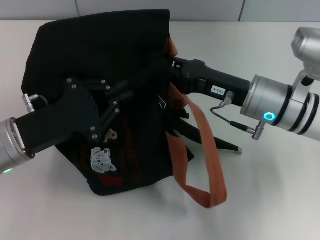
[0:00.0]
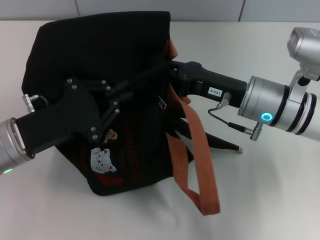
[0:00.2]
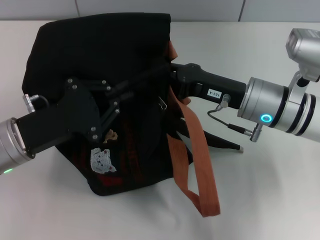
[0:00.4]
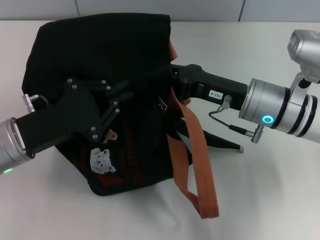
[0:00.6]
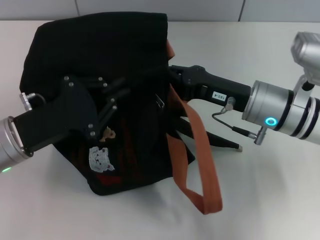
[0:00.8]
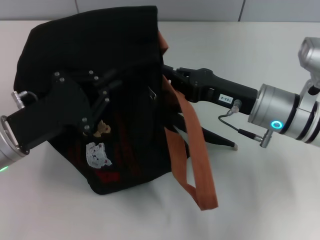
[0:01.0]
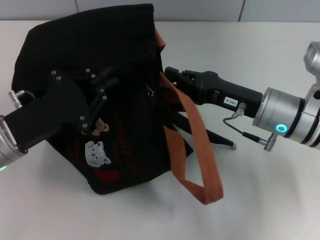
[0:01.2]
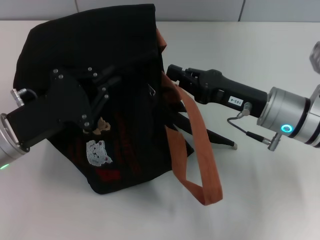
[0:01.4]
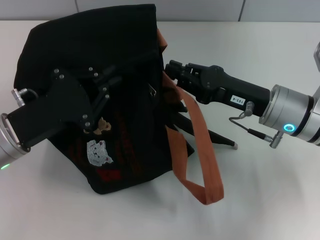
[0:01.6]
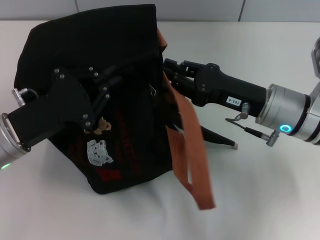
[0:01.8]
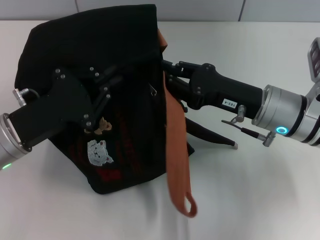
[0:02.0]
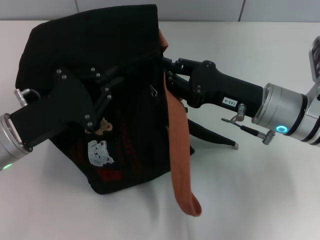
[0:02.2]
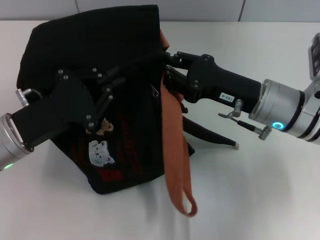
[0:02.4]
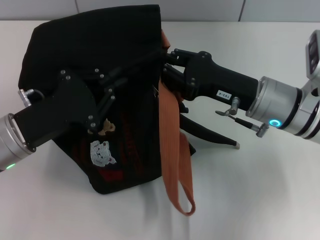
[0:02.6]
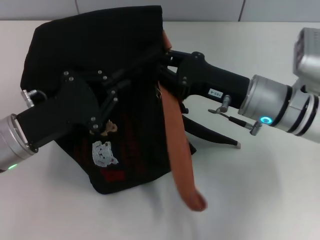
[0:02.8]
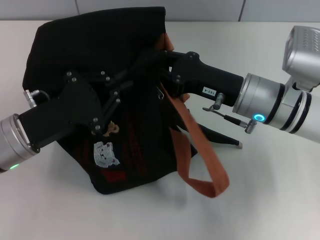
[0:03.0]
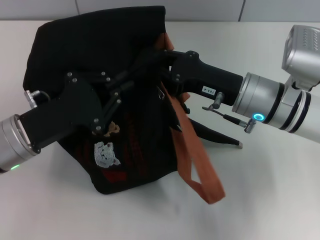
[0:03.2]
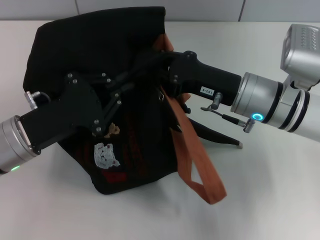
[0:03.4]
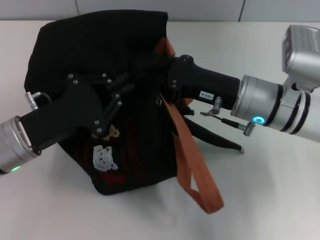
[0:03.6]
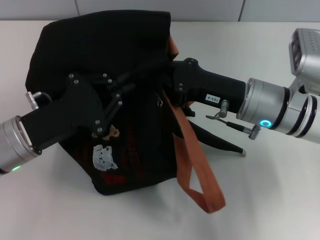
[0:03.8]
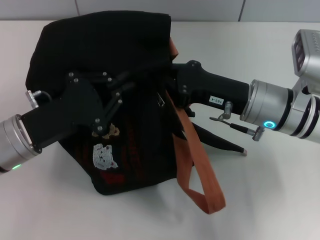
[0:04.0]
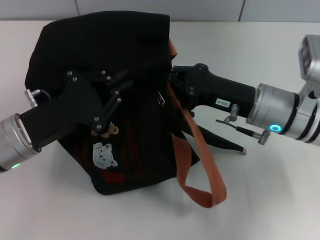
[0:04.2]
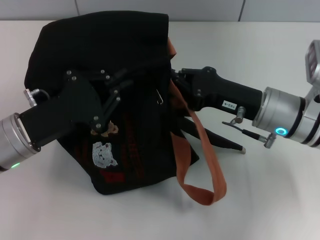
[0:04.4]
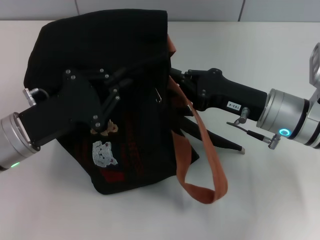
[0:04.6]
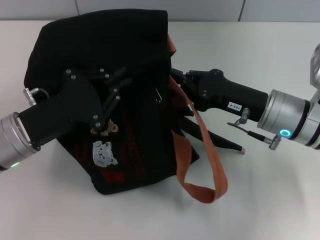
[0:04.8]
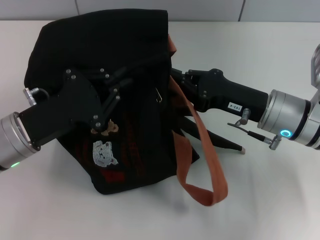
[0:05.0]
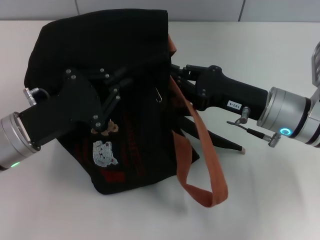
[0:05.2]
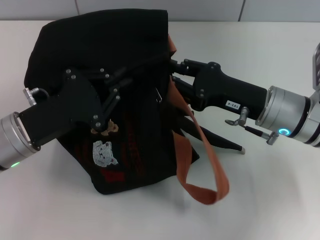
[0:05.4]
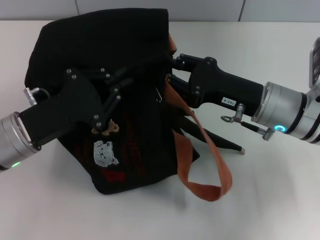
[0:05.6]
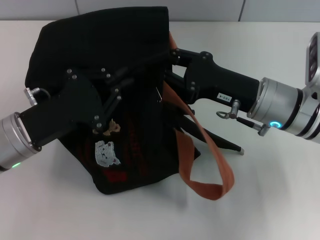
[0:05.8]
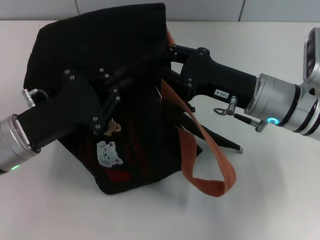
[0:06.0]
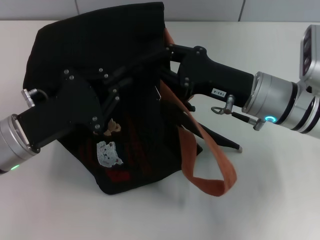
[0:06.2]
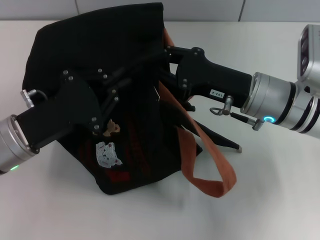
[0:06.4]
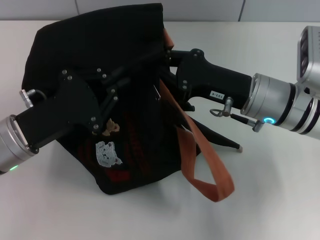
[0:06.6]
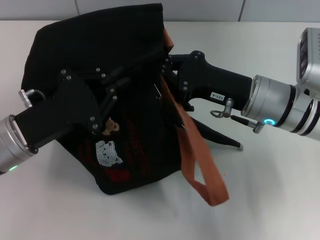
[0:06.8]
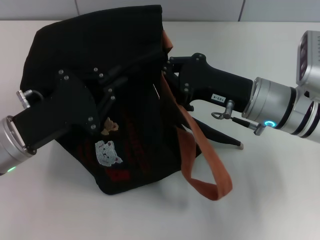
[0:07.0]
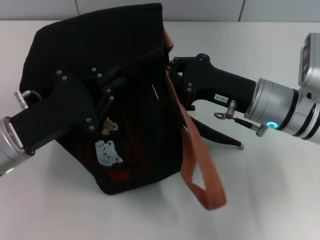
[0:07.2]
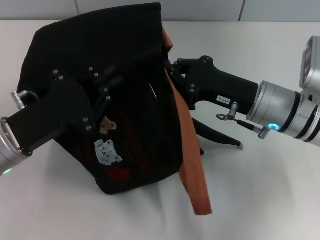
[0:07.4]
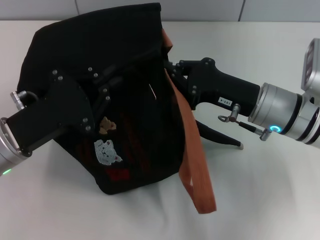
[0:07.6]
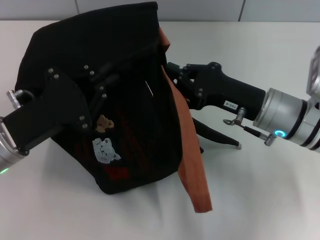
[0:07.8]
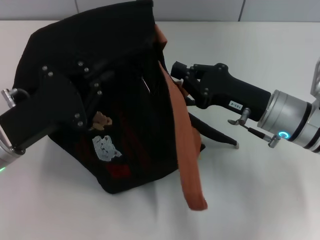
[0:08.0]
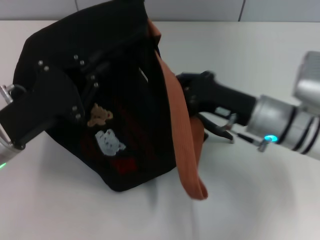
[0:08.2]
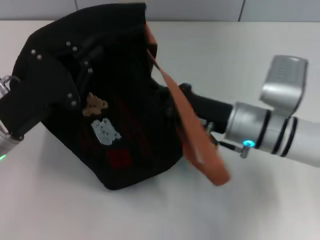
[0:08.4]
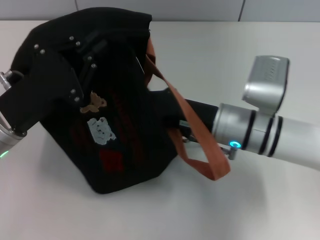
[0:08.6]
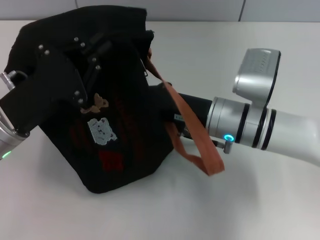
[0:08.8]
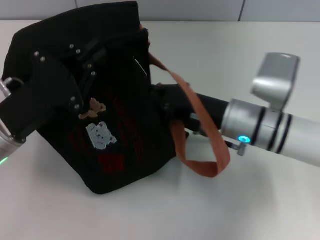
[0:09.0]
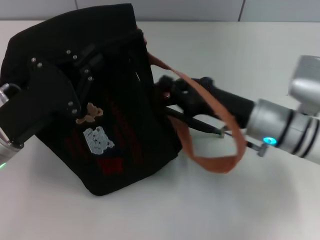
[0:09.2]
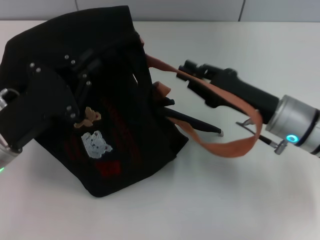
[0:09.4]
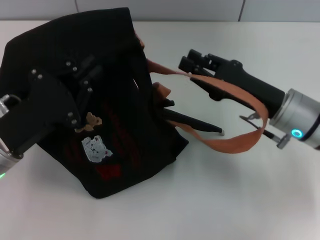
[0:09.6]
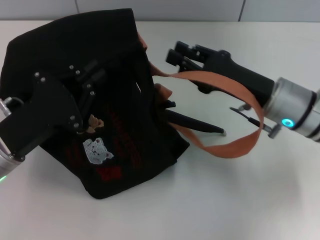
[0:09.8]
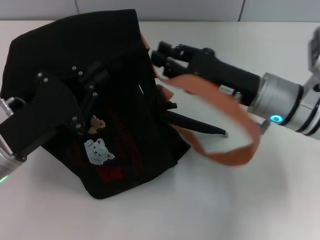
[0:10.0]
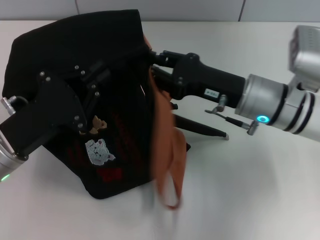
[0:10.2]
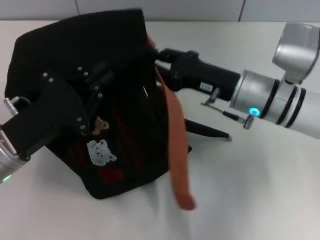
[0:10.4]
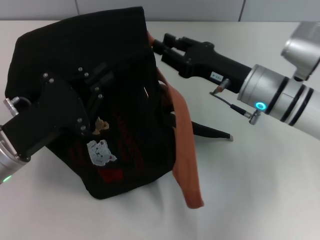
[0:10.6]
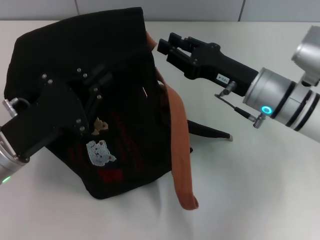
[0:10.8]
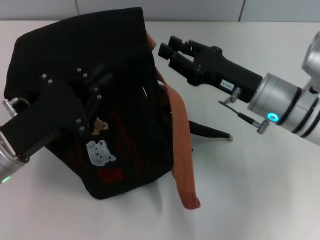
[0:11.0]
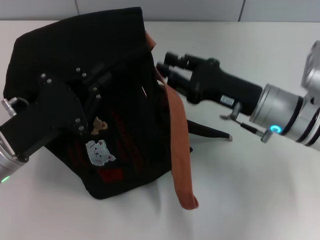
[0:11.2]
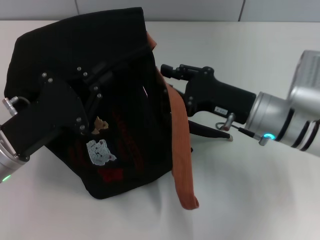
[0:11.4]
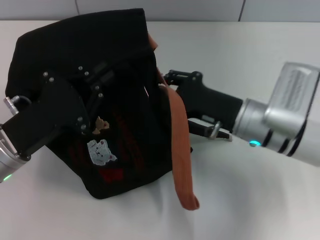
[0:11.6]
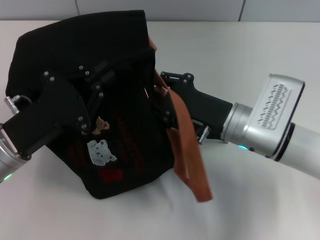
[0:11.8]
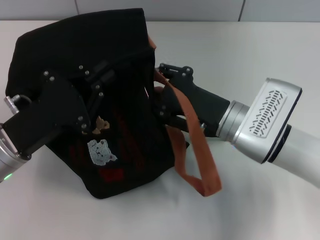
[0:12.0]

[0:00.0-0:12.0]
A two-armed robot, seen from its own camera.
0:00.0 to 0:01.6: The right gripper closes up.
0:03.0 to 0:04.4: The grippers stay close to where they were, moving slightly.
0:04.4 to 0:06.0: The right gripper opens its fingers.
0:06.0 to 0:07.6: The right gripper closes its fingers.
0:09.0 to 0:10.4: The right gripper opens up.

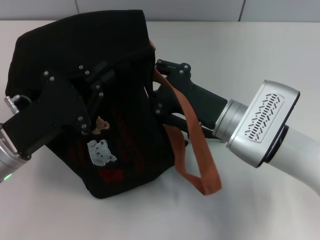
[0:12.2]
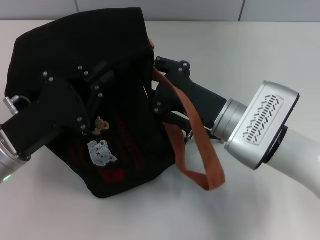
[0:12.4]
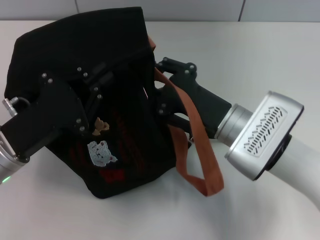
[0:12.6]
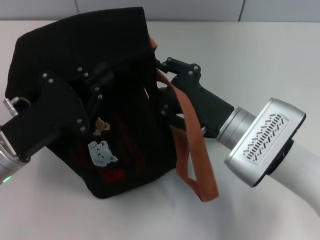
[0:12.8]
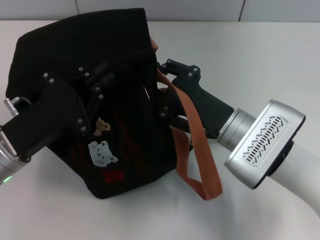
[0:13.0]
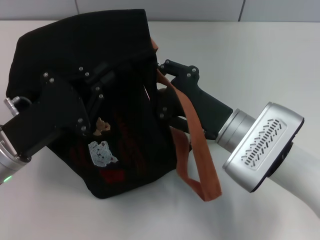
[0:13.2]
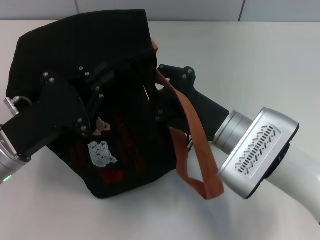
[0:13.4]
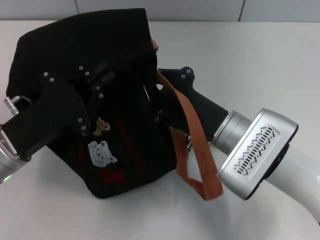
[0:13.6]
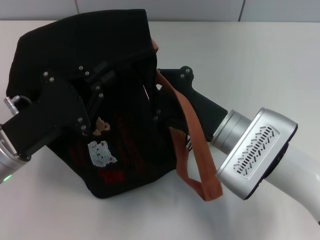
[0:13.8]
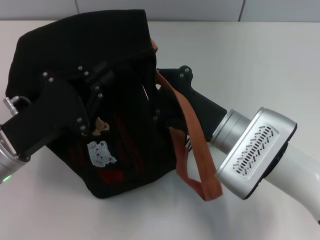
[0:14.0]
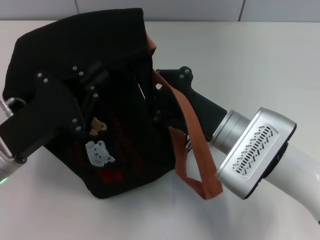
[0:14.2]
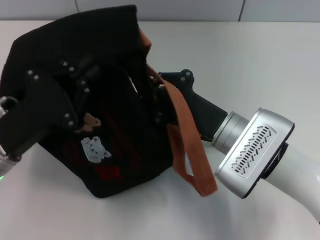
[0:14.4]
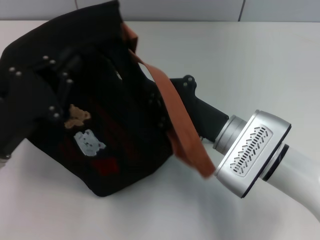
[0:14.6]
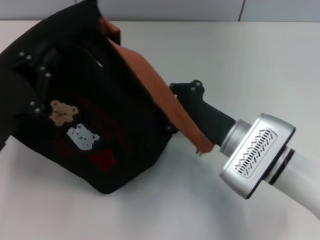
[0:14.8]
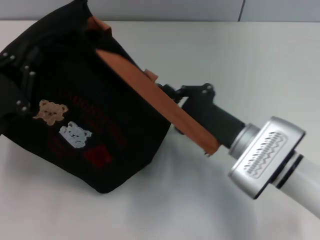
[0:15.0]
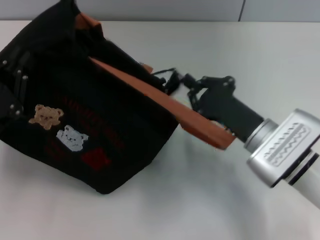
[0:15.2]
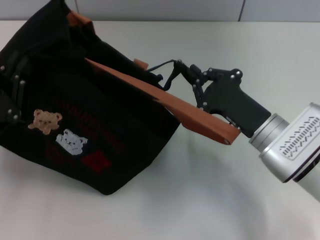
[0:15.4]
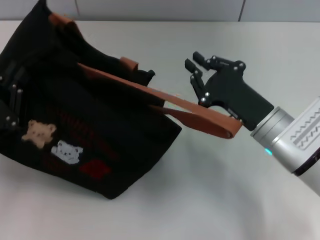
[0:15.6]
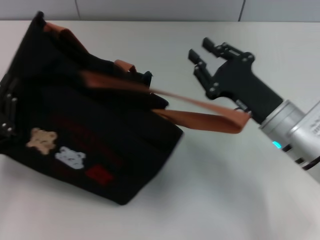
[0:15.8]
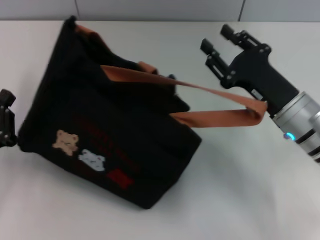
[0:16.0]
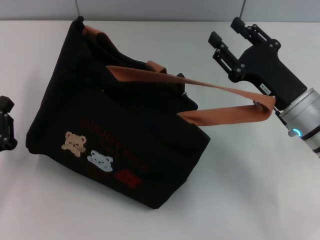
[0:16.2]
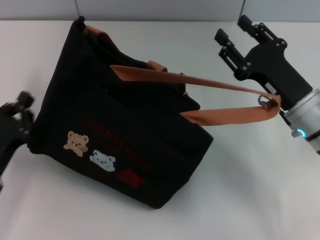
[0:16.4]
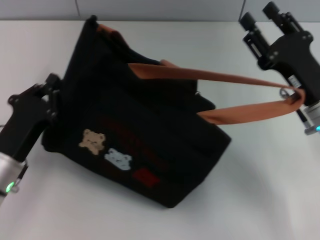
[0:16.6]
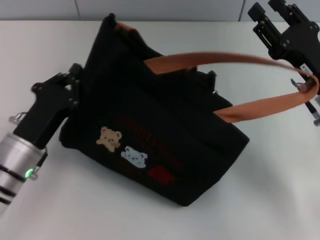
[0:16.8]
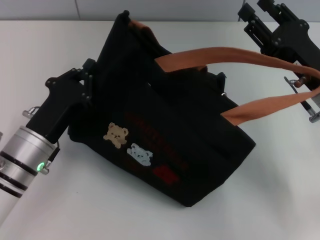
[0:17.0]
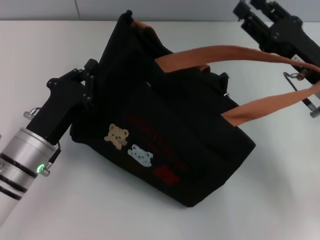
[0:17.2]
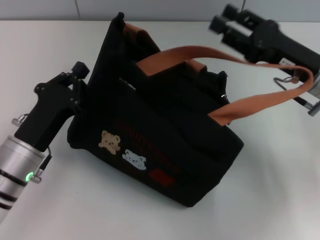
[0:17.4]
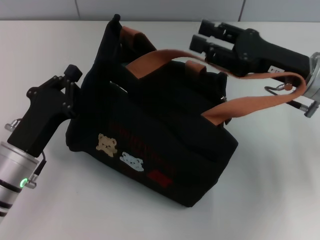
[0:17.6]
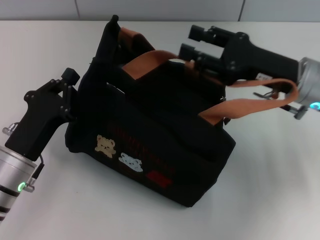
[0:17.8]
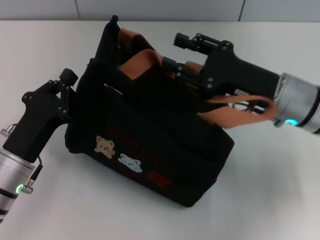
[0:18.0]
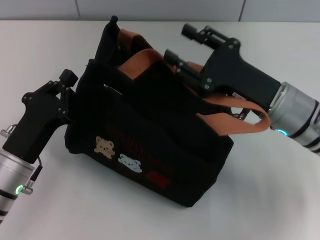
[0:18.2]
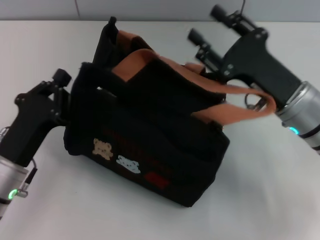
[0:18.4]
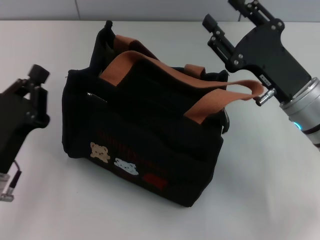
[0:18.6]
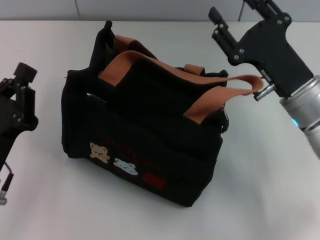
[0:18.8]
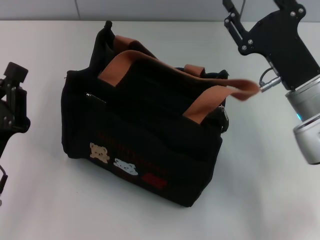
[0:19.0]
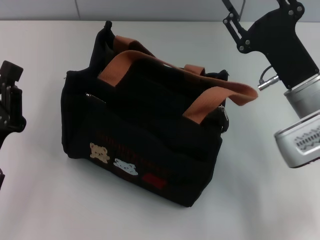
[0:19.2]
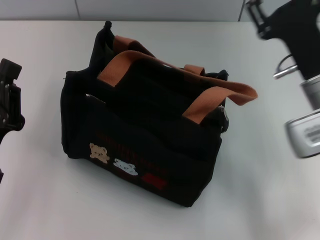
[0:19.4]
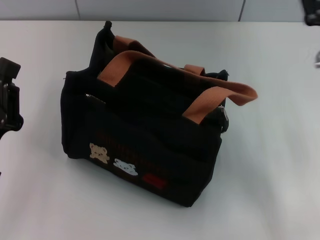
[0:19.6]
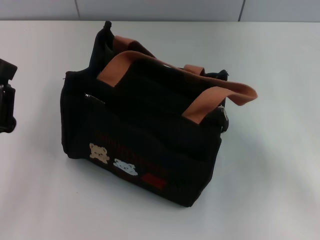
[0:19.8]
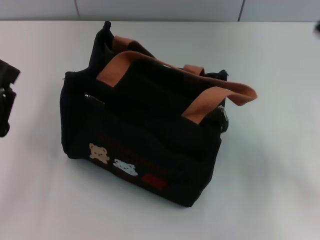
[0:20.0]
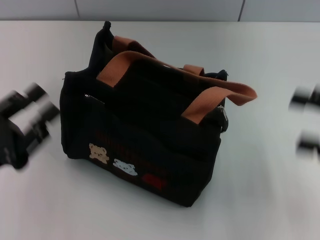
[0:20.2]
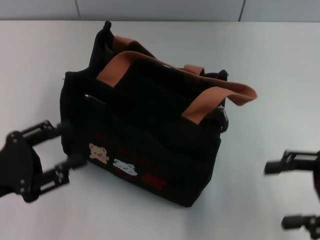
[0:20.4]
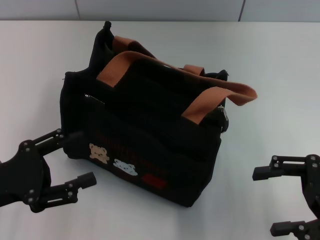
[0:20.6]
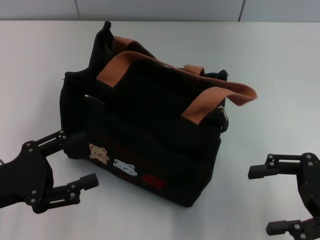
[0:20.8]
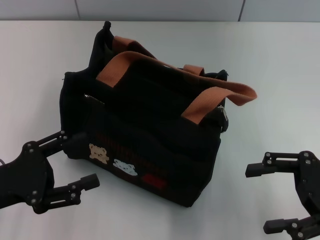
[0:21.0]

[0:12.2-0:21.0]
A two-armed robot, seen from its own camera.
Step, 0:12.2 to 0:15.6: Pull open the zipper with your right hand.
Step, 0:15.8 to 0:16.2: Grab the bag with your left hand.
0:12.2 to 0:13.6: The grippers make only small movements.
0:13.6 to 0:15.2: The left gripper ends up approximately 5 cm from where it was, while the right gripper changes place by roughly 5 cm.
0:15.2 to 0:16.6: The left gripper changes place by roughly 5 cm, while the right gripper moves to the right, roughly 5 cm, and opens up.
0:16.6 to 0:18.0: The right gripper shifts by some 5 cm.
0:18.0 to 0:19.6: The left gripper shifts by some 5 cm. Meanwhile the right gripper travels to the right by roughly 10 cm.
0:19.6 to 0:21.0: The right gripper shifts approximately 5 cm backward. The left gripper opens up.

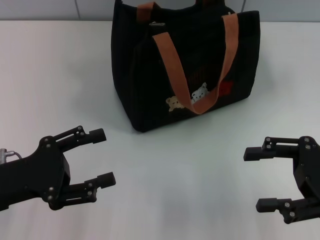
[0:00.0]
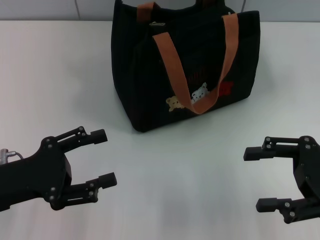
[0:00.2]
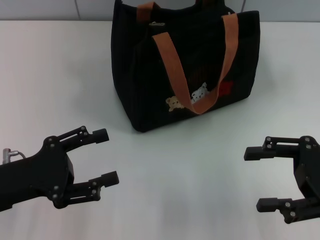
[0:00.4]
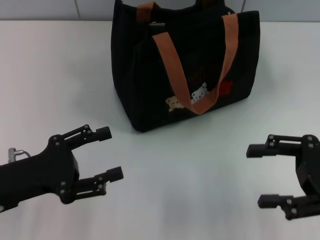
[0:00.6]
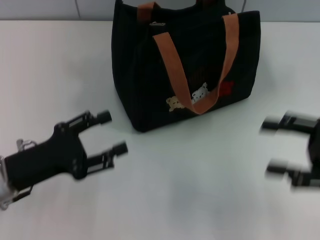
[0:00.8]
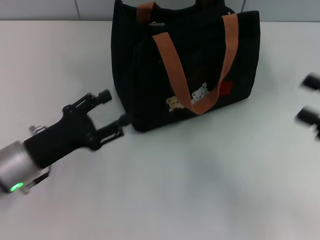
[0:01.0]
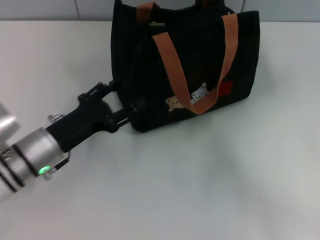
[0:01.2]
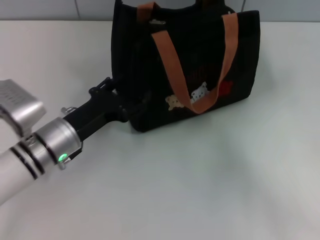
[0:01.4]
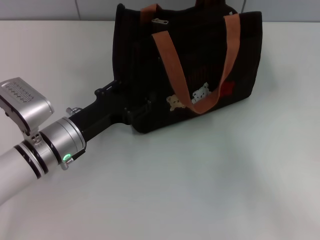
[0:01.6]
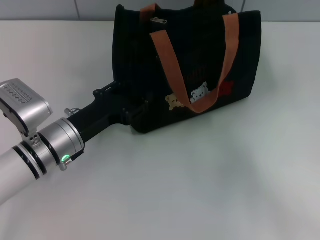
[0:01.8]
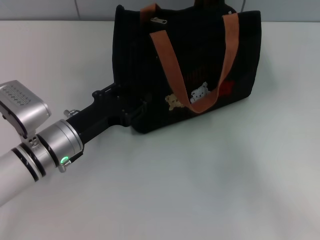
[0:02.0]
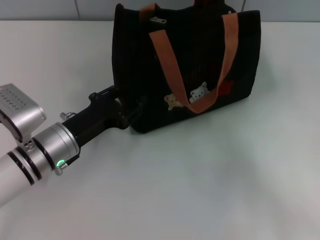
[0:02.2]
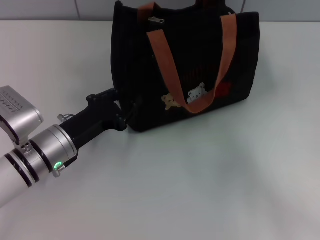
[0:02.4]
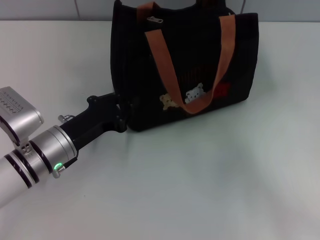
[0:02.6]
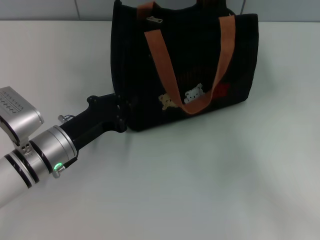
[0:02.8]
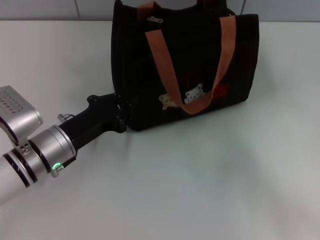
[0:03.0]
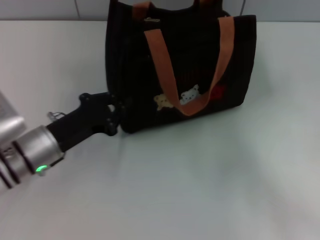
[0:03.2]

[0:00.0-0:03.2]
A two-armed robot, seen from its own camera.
0:00.0 to 0:01.6: The right gripper travels to the right by roughly 5 cm; the left gripper goes about 15 cm to the right, forward and downward.
0:01.6 to 0:03.2: The left gripper closes its fingers.
